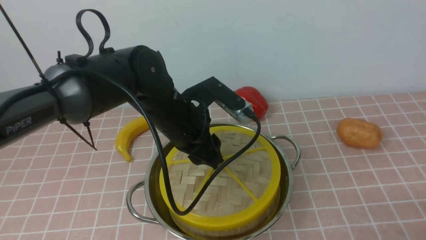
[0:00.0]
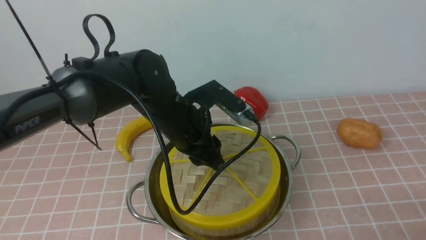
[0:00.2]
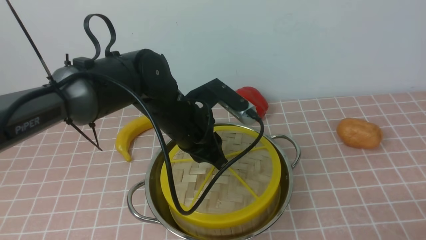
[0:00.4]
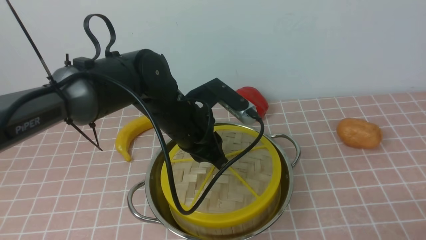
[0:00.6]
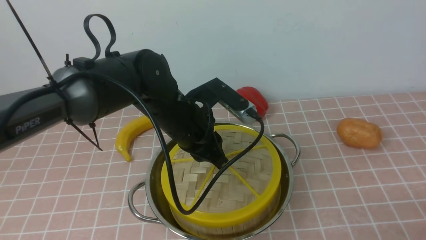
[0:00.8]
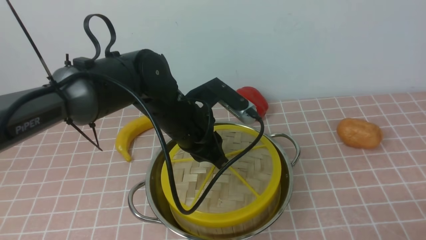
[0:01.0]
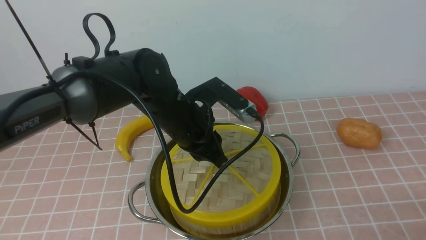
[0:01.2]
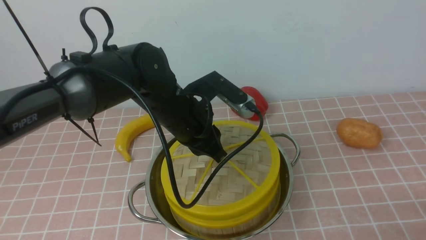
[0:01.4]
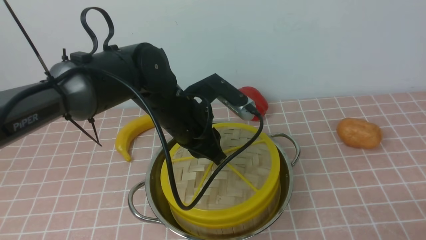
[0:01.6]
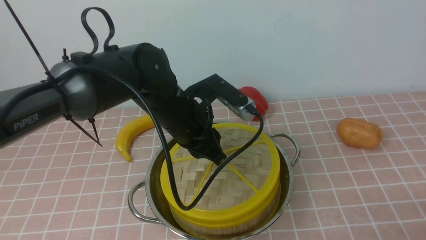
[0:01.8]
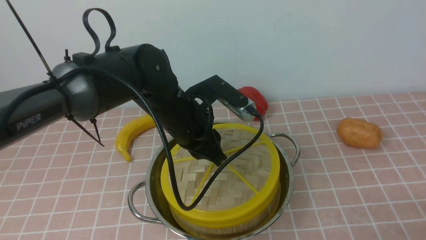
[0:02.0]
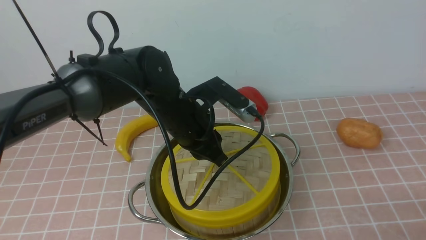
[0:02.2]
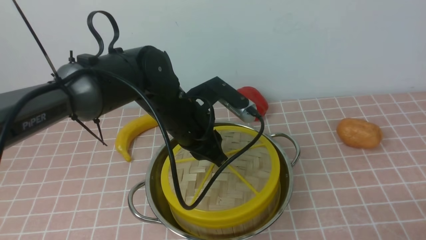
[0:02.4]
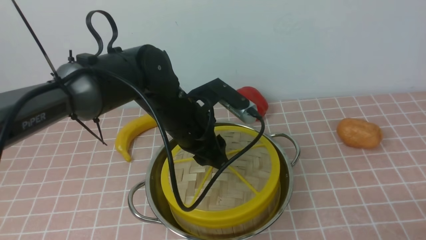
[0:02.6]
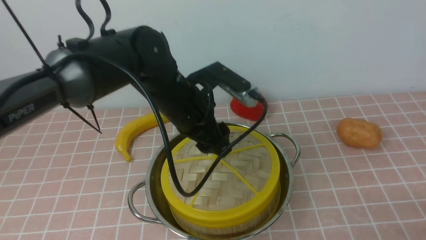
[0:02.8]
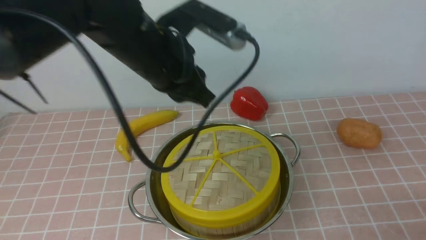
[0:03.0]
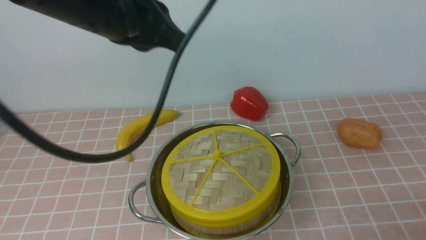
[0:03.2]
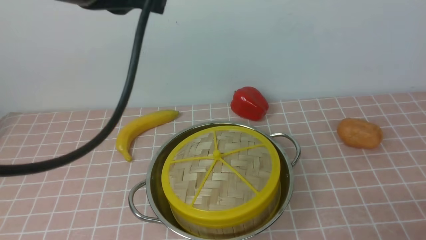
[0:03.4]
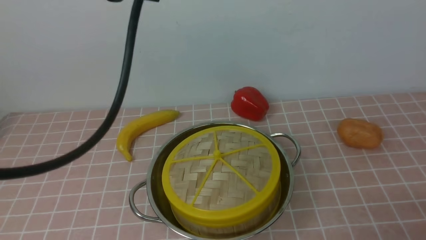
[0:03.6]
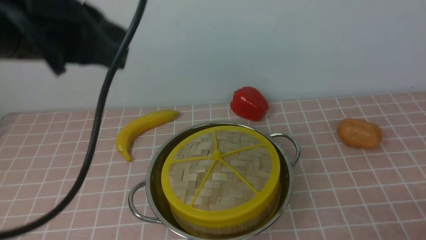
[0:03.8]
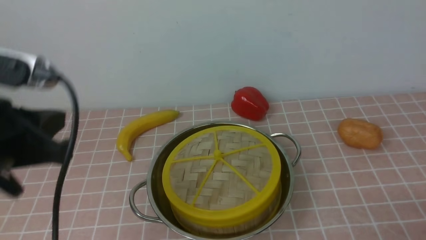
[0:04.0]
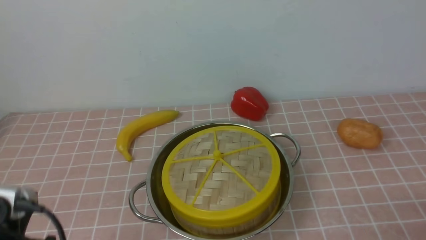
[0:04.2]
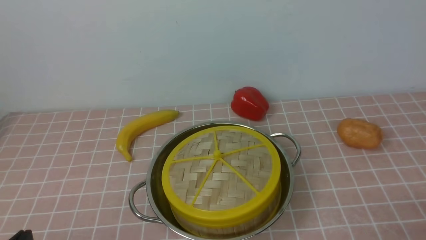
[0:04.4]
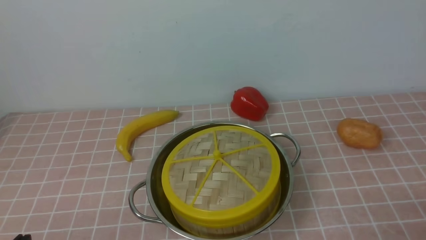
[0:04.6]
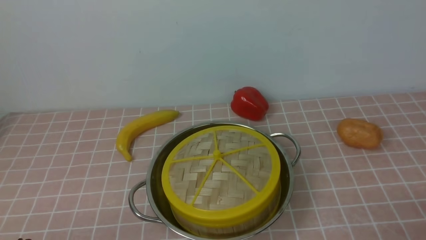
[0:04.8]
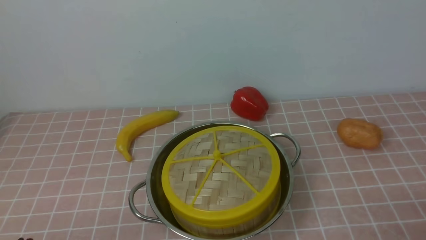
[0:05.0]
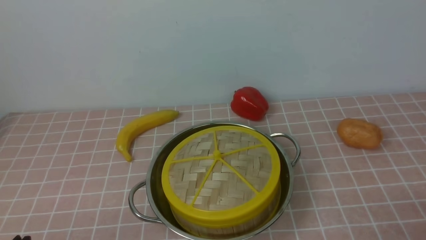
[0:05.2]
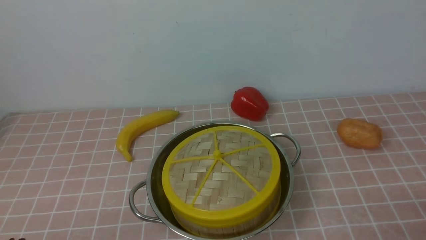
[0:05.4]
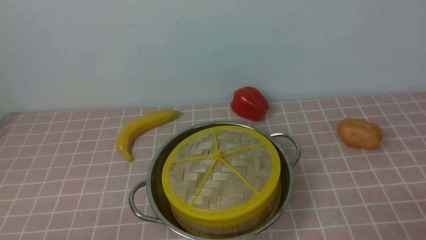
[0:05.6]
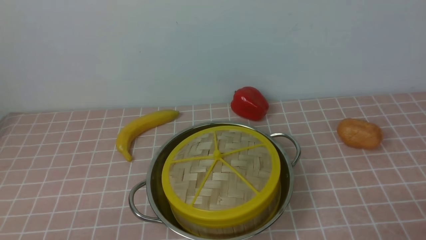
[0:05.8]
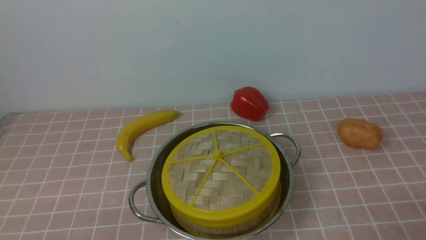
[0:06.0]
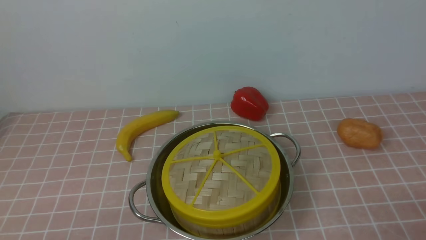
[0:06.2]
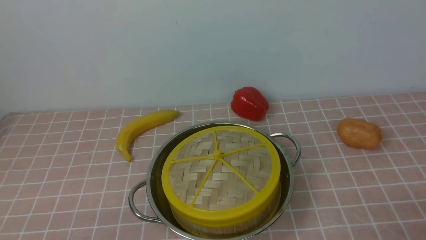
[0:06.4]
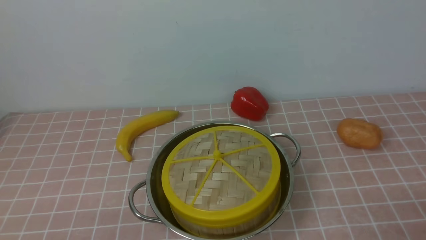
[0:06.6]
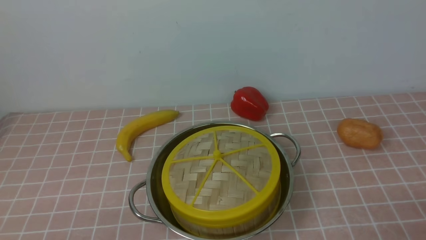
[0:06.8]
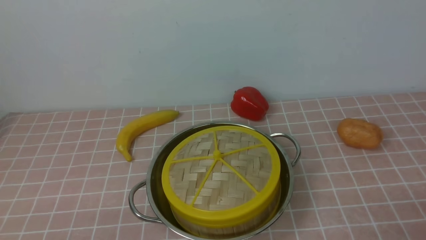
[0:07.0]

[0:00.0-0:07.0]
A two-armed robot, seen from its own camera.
Task of the whole recording: place the steamer in the pot on the pink tablecloth, and put the lid on the steamer.
Step, 0:00.0 to 0:02.8: use the left arm to place the steamer lid on the steamer.
0:00.0 to 0:01.4: The left gripper closes its fingers.
0:01.4 to 0:02.8: The left gripper heads upward, covering approximately 5 cm, and opens up.
0:02.8 to 0:04.2: The left gripper shifts about 30 cm backward and to the left, and closes up.
0:04.2 to 0:05.6: The left gripper is displaced downward and backward by some 10 cm.
0:05.6 to 0:07.0: Both grippers stay about where they are.
